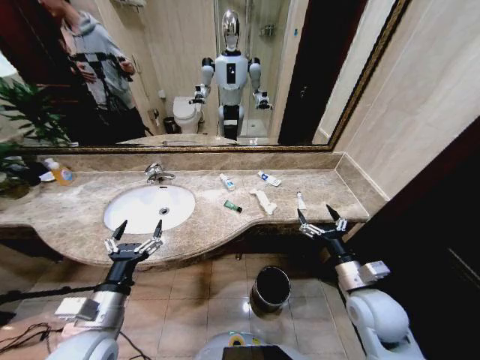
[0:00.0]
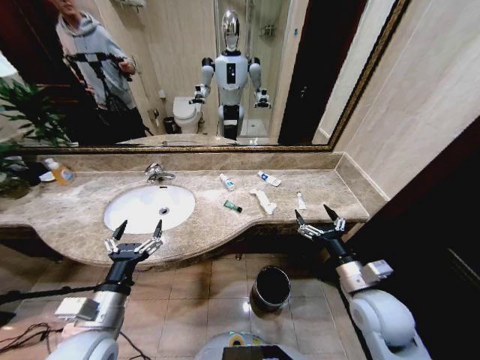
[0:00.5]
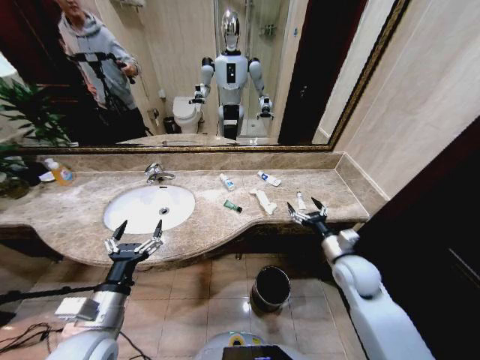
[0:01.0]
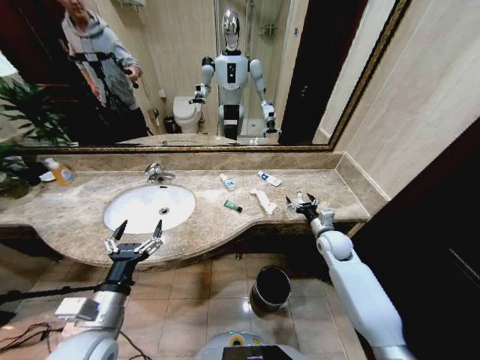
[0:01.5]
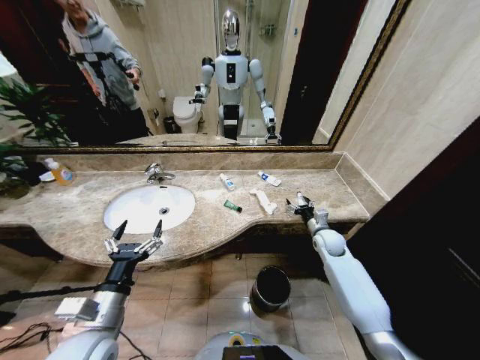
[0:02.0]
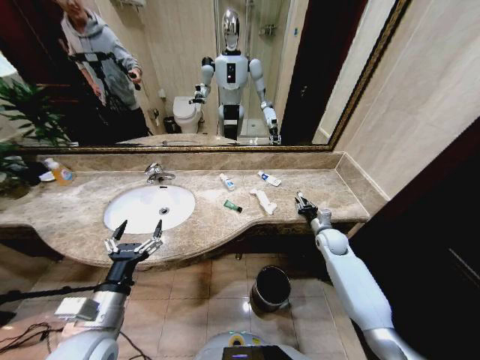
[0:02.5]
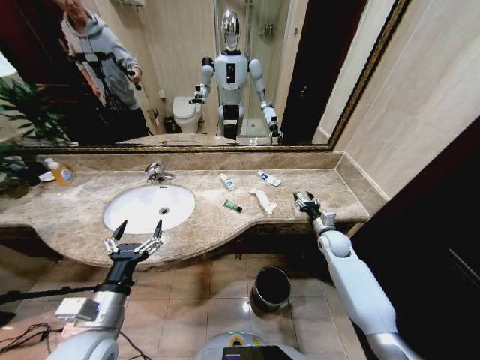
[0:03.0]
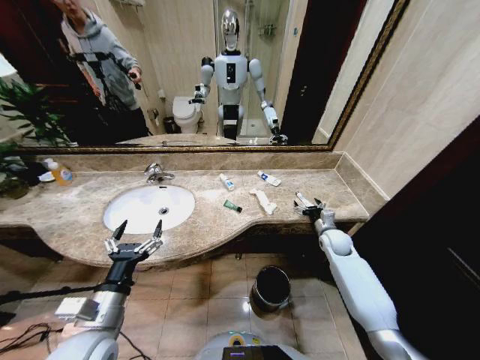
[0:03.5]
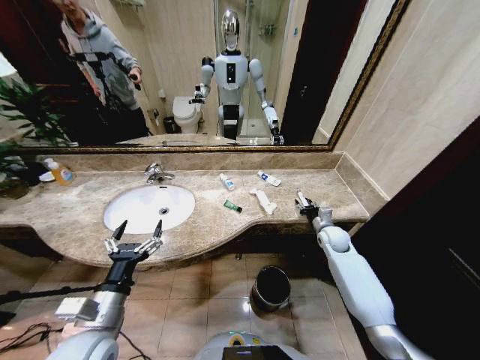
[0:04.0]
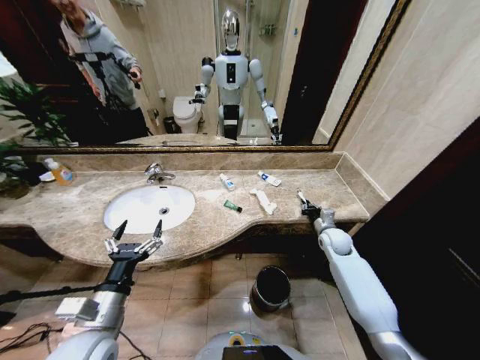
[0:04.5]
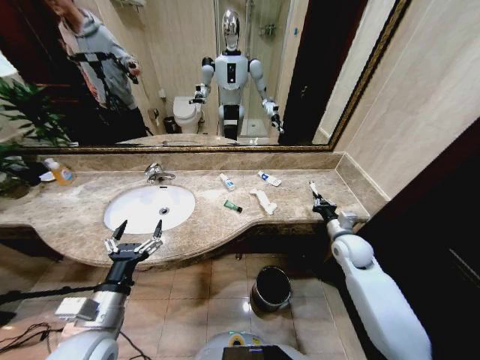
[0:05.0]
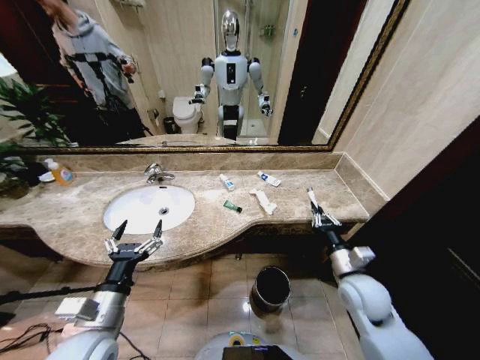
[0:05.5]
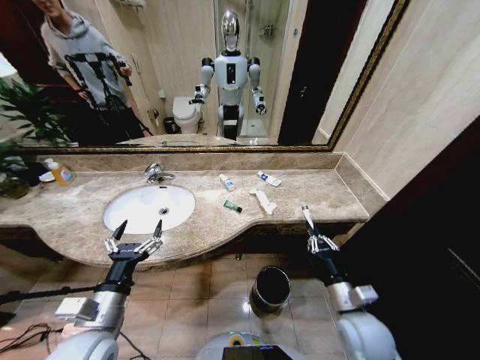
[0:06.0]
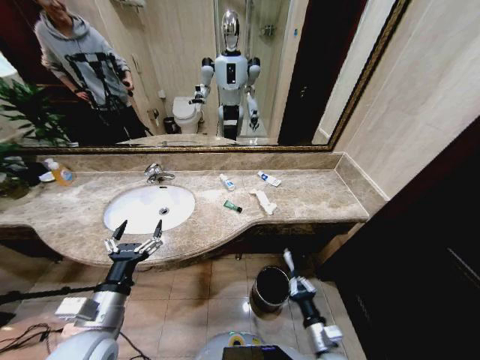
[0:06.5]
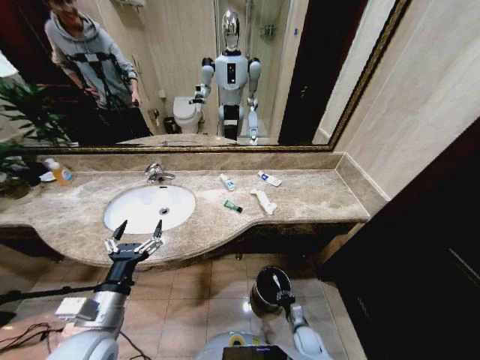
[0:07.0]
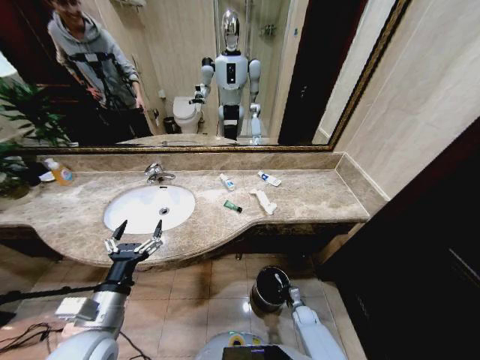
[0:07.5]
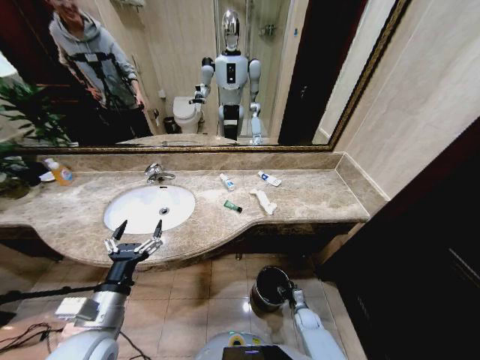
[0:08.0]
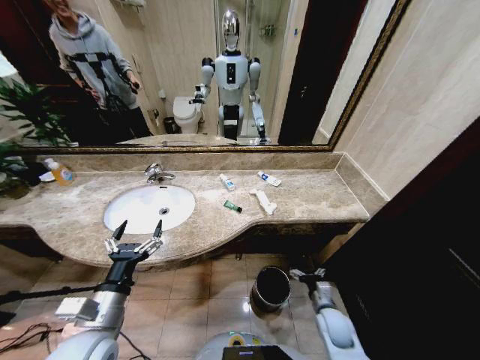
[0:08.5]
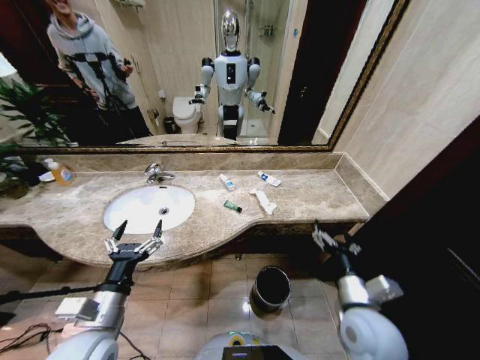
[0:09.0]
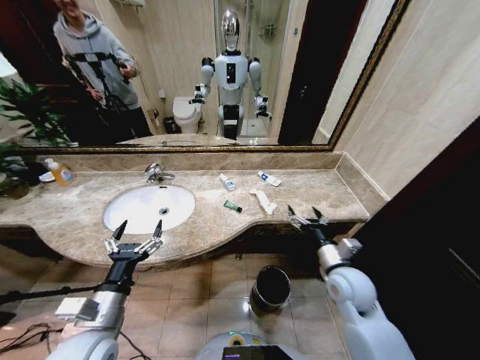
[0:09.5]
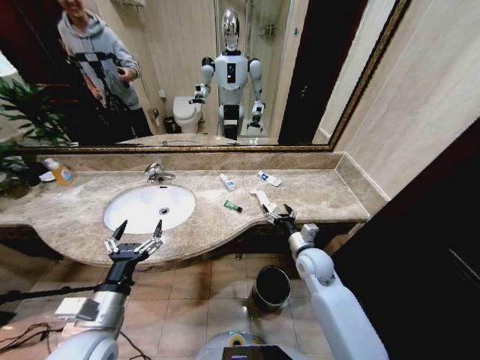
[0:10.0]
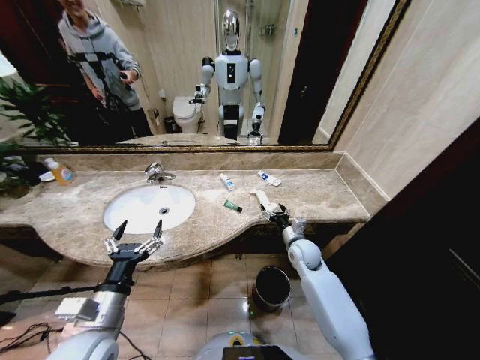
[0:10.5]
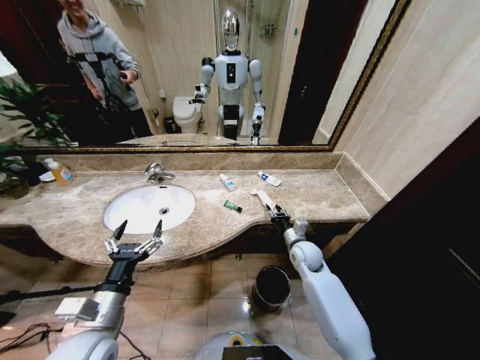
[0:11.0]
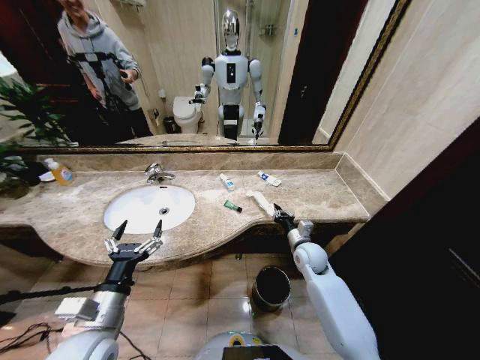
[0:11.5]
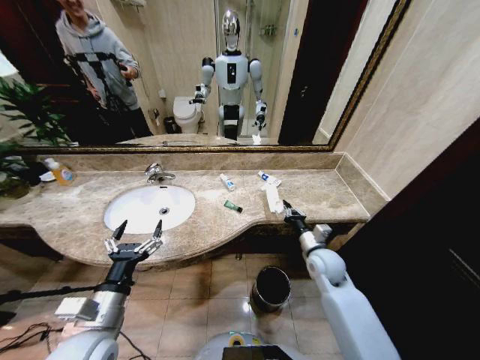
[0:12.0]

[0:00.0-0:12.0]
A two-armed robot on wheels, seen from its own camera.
Task of the whole recording: Pick up the trash from the sink and place it in the trash bin.
2.0 to 4.0 s: The grippers stay close to where they were, moving slightly.
4.0 to 6.0 s: The right gripper is displaced backward by about 25 cm, and closes up.
6.0 to 8.0 s: The right gripper is displaced downward by approximately 35 cm, and opens up.
8.0 to 10.0 s: The right gripper goes roughly 35 cm upward, and opens.
10.0 to 12.0 s: The right gripper closes up.

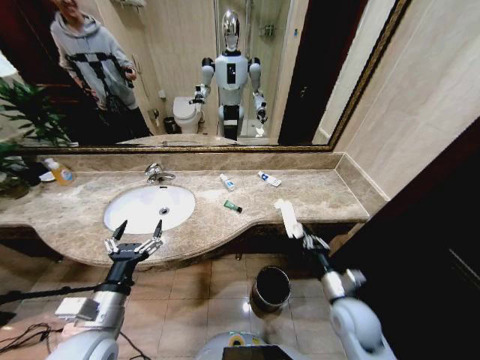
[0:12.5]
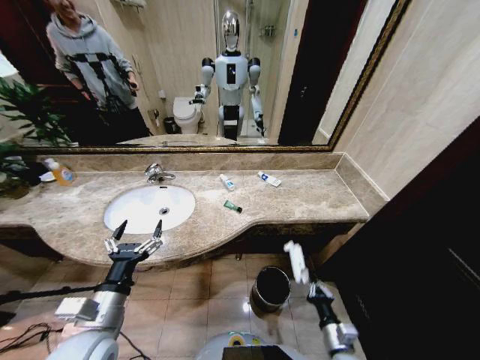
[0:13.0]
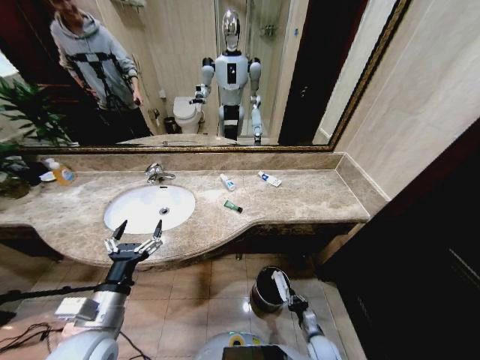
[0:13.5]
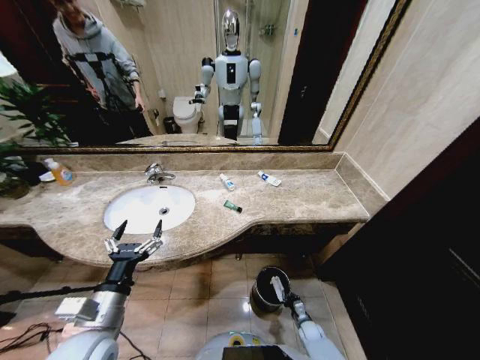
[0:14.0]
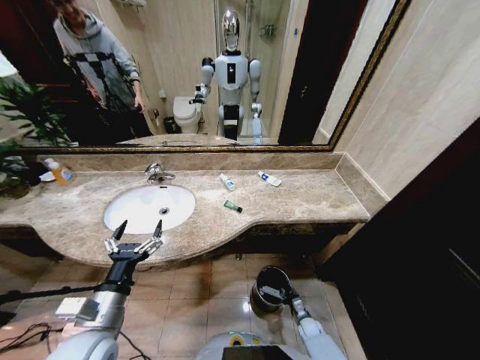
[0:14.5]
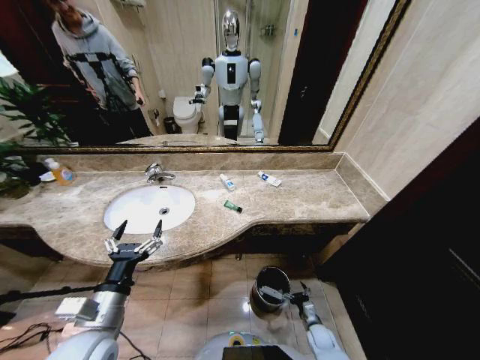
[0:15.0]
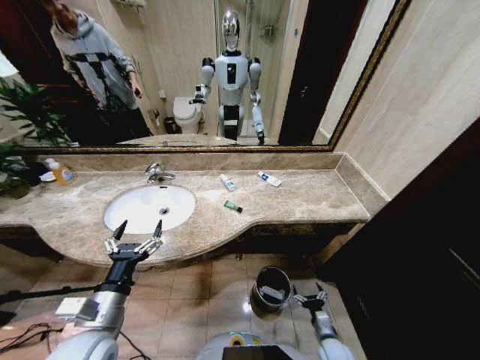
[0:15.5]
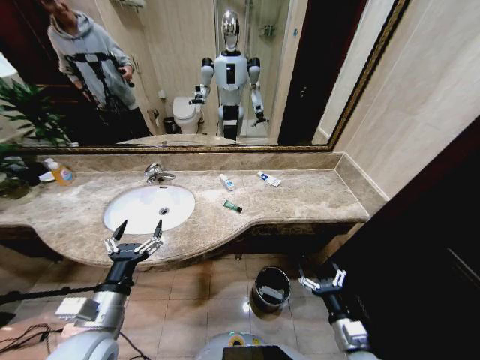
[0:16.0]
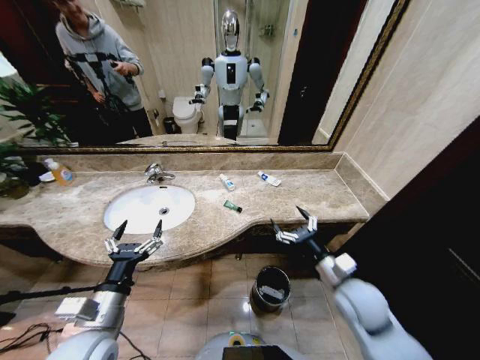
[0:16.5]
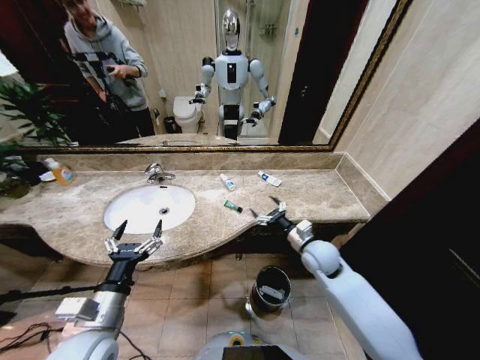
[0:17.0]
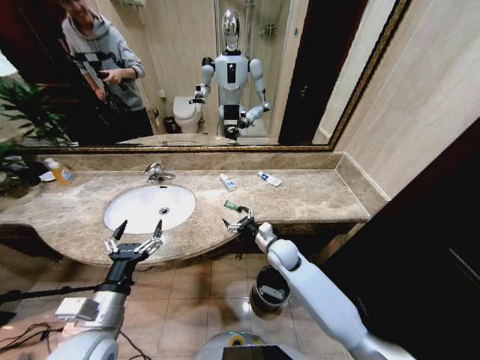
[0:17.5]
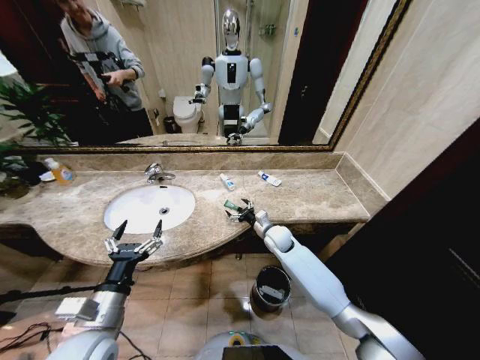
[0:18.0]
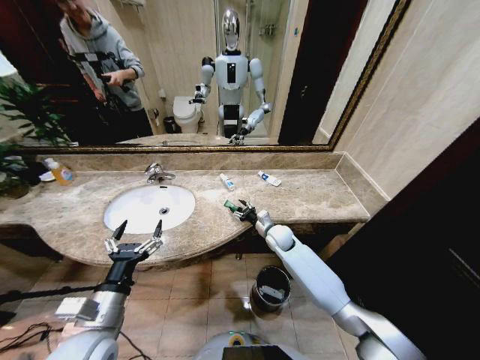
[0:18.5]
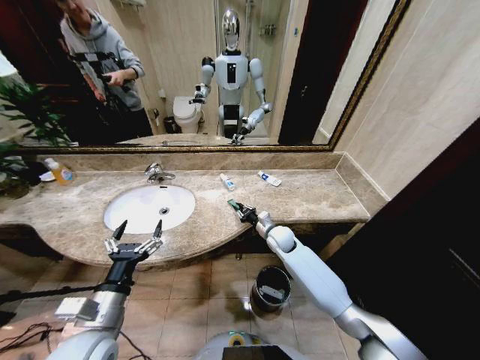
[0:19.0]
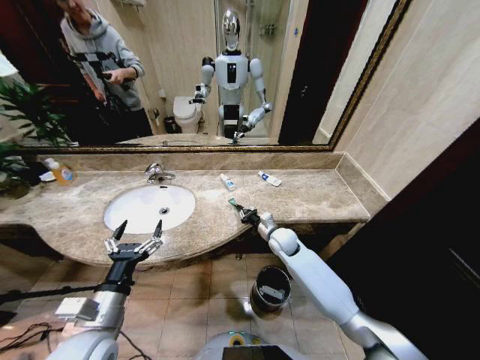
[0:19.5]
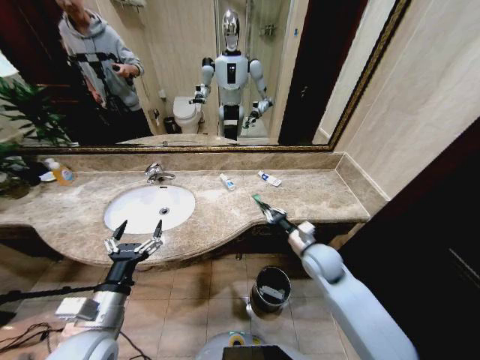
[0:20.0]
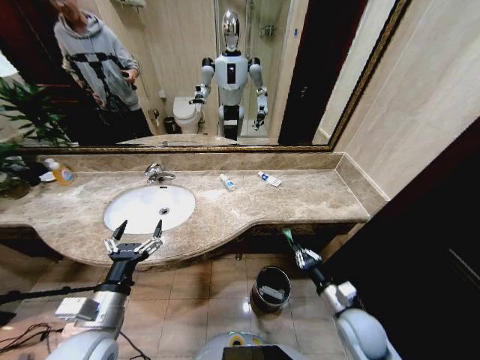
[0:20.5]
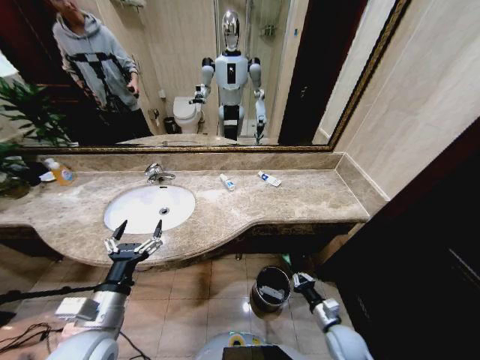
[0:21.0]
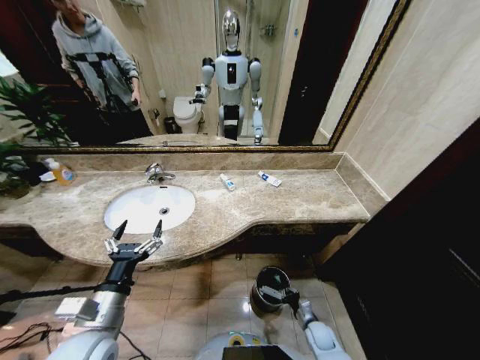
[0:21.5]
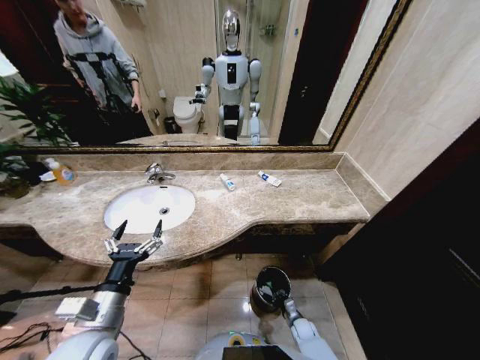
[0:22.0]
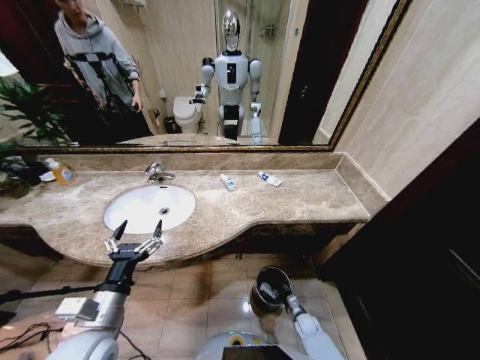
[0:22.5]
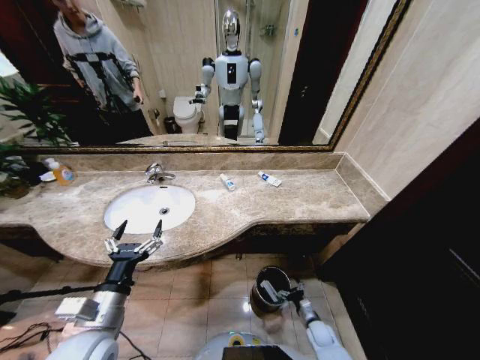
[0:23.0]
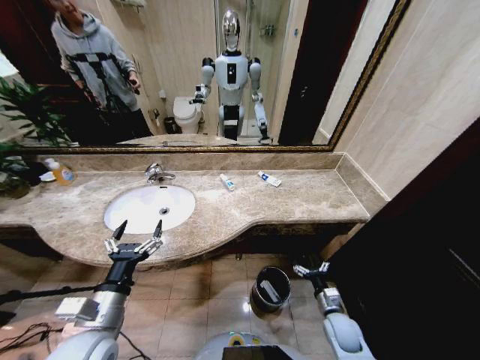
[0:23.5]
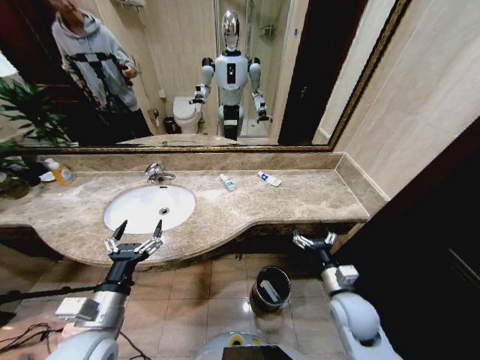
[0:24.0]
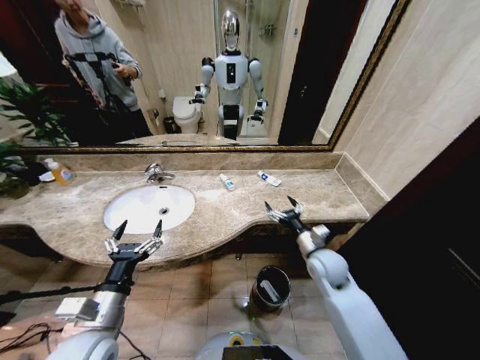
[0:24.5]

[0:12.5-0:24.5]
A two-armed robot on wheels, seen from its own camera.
Task of the whole recording: Pick up the trash from the sink and place it in the trash bin.
12.5 to 14.5 s: The right gripper travels downward by about 35 cm, and opens.
14.5 to 16.5 s: The right gripper travels upward by about 40 cm, and opens up.
16.5 to 18.5 s: The right gripper is displaced forward and to the left by approximately 25 cm.
18.5 to 20.5 s: The right gripper shifts some 30 cm backward and to the right, and closes.
20.5 to 22.5 s: The right gripper is displaced downward by roughly 30 cm.
22.5 to 24.5 s: The right gripper travels upward by approximately 35 cm, and opens.

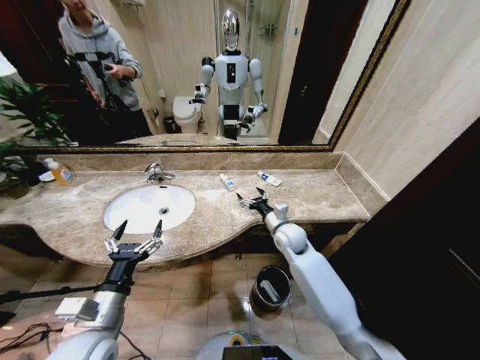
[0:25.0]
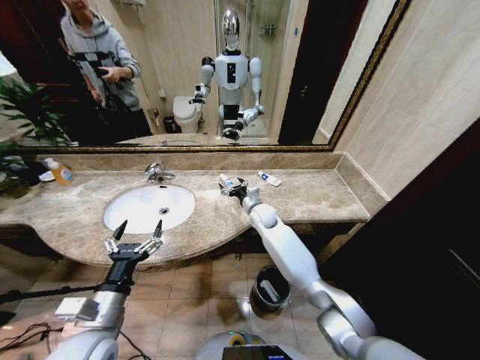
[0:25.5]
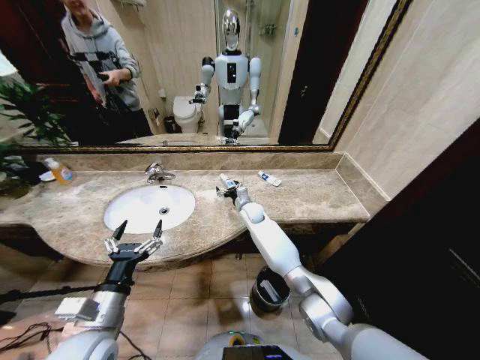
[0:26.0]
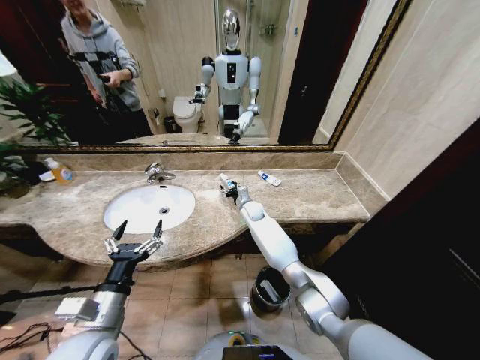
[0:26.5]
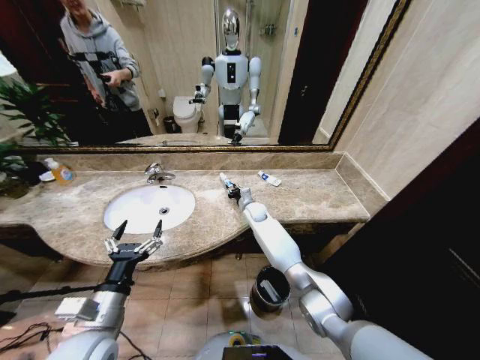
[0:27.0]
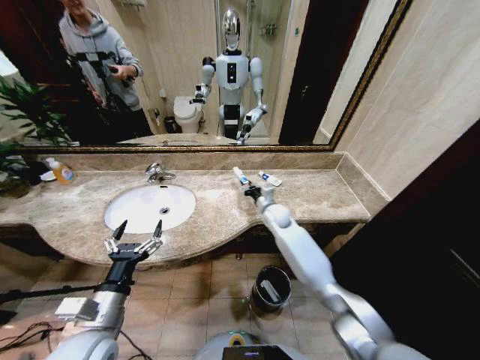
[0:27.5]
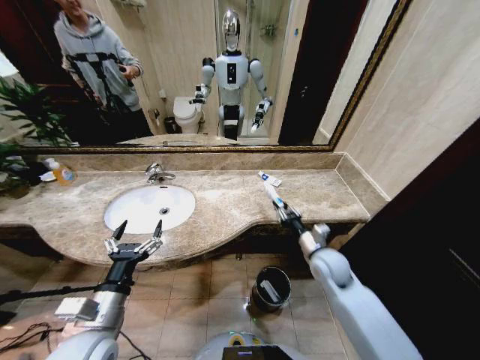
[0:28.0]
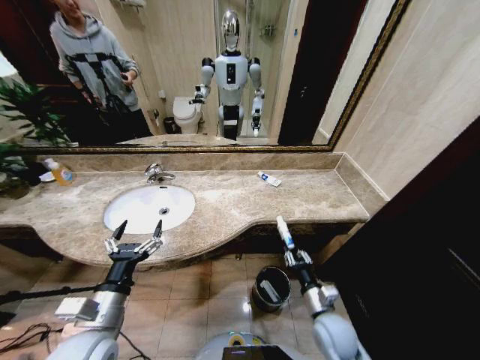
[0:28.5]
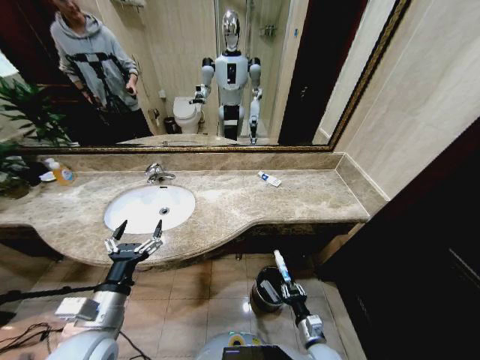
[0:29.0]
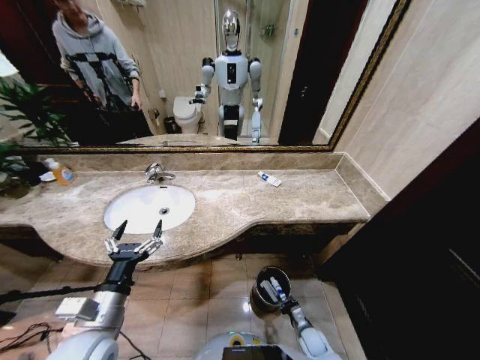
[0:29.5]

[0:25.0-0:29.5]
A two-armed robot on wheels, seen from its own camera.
Task of the whole recording: Pick up the trash from the sink and place it in the trash bin.
25.0 to 27.0 s: The right gripper goes about 15 cm forward and to the left, and closes up.
27.0 to 29.5 s: The right gripper heads backward, downward and to the right, covering approximately 50 cm.
